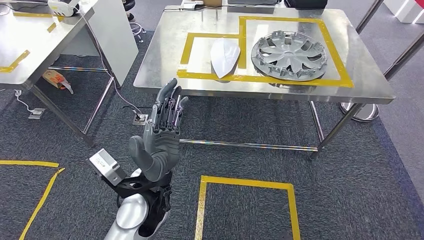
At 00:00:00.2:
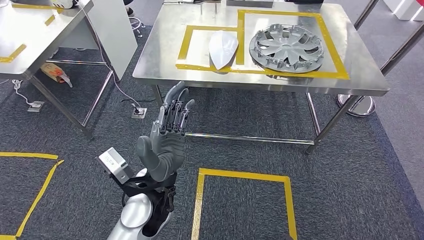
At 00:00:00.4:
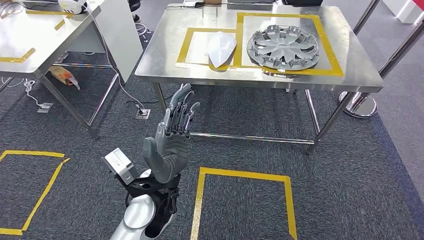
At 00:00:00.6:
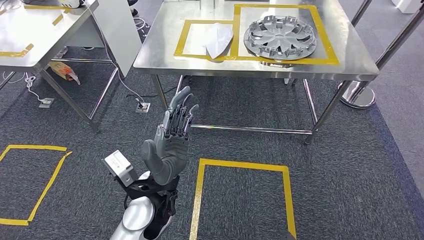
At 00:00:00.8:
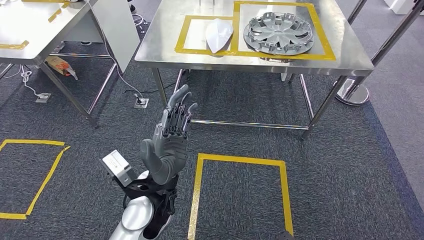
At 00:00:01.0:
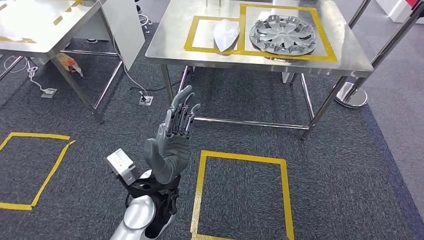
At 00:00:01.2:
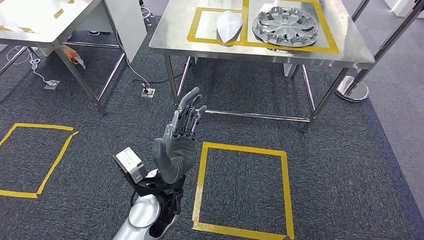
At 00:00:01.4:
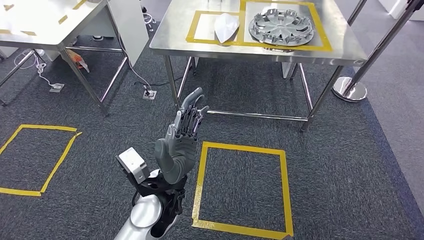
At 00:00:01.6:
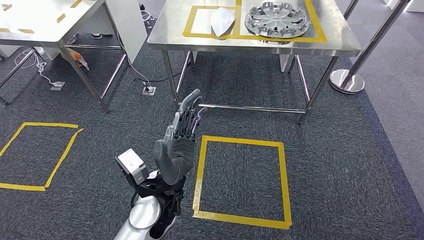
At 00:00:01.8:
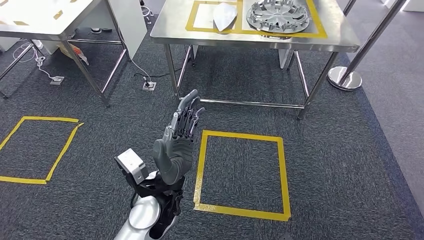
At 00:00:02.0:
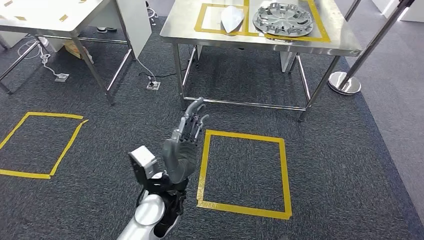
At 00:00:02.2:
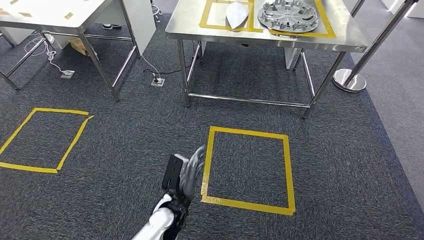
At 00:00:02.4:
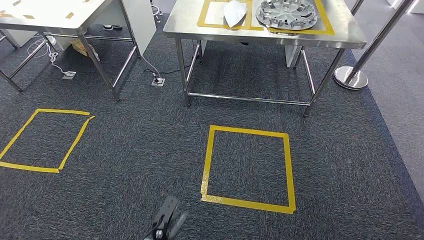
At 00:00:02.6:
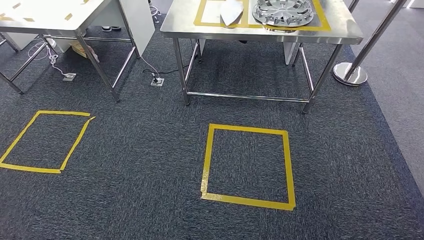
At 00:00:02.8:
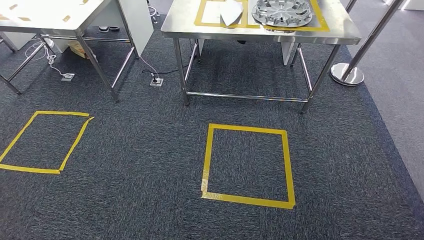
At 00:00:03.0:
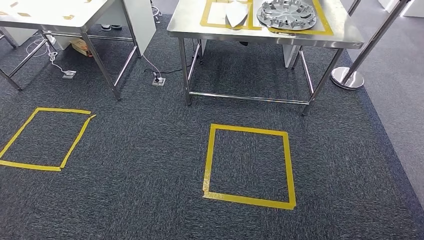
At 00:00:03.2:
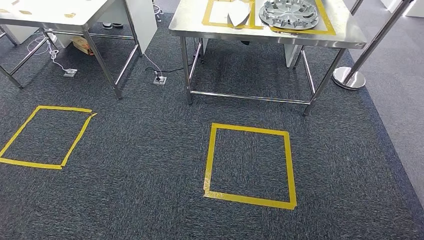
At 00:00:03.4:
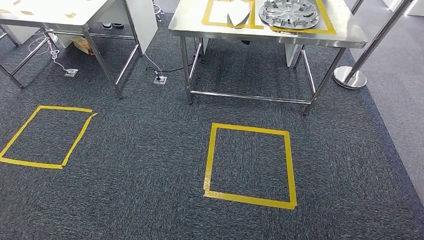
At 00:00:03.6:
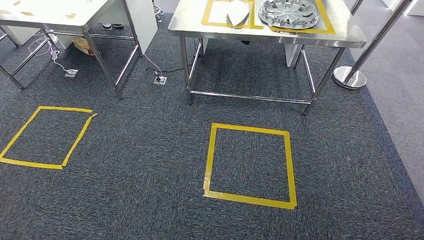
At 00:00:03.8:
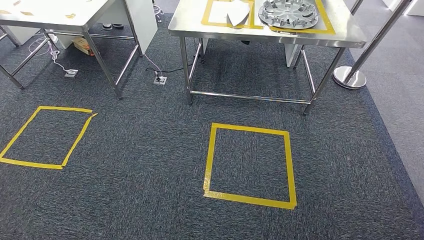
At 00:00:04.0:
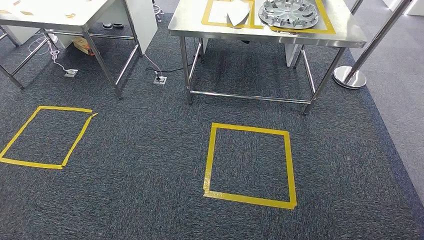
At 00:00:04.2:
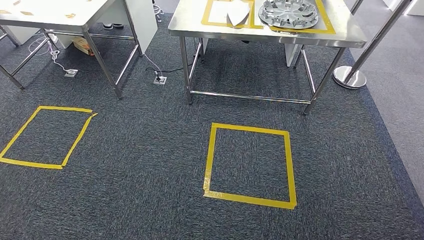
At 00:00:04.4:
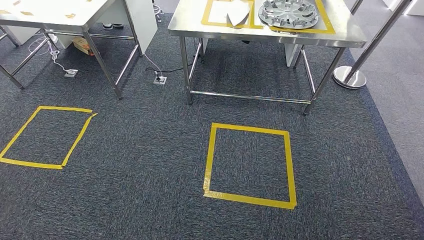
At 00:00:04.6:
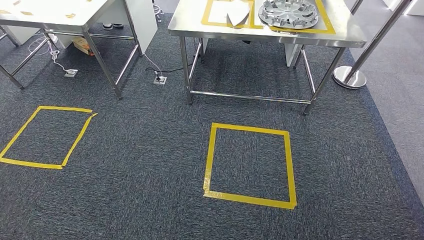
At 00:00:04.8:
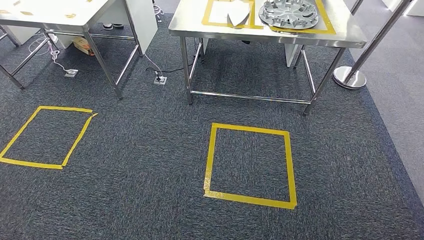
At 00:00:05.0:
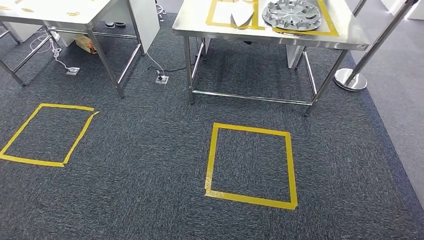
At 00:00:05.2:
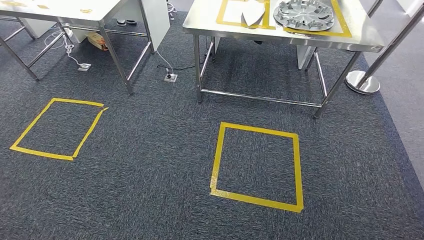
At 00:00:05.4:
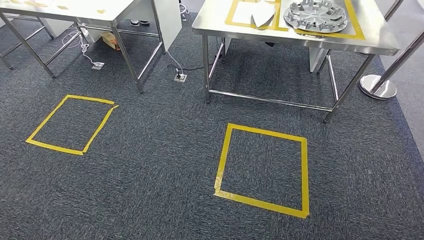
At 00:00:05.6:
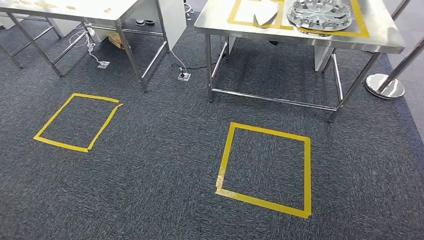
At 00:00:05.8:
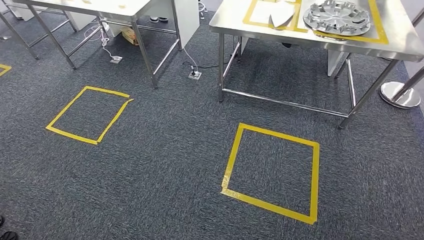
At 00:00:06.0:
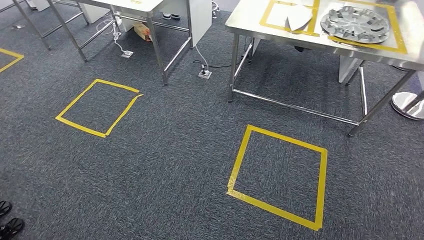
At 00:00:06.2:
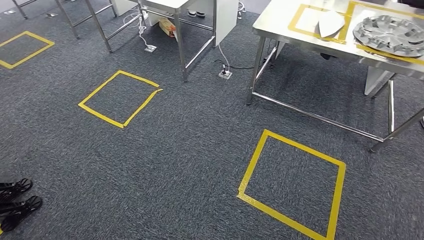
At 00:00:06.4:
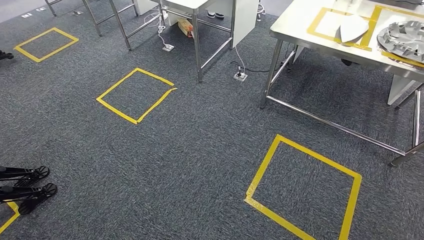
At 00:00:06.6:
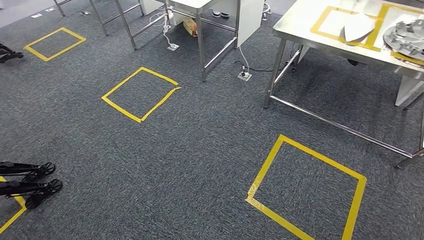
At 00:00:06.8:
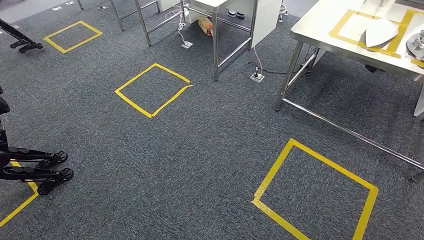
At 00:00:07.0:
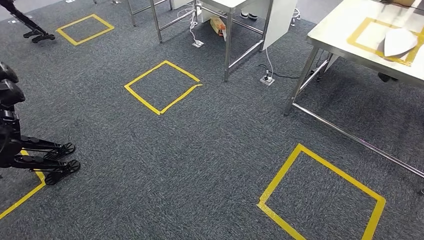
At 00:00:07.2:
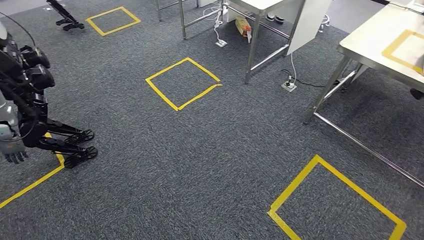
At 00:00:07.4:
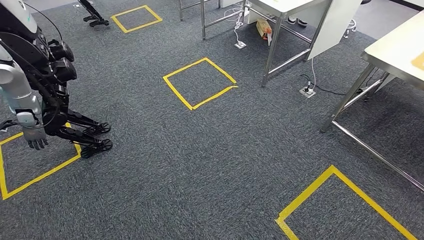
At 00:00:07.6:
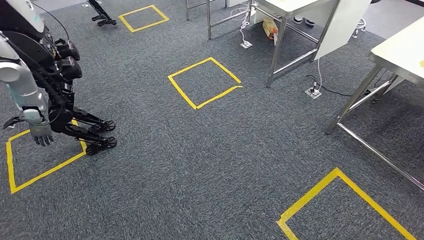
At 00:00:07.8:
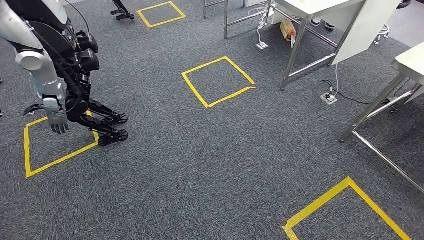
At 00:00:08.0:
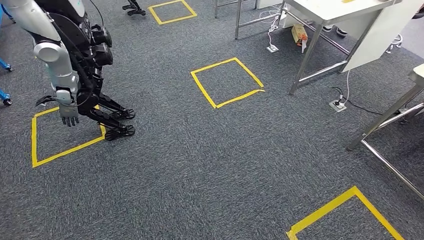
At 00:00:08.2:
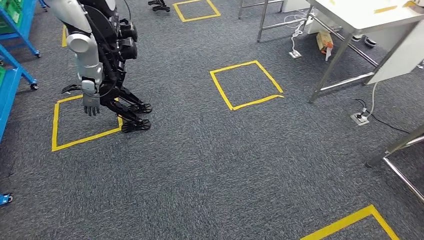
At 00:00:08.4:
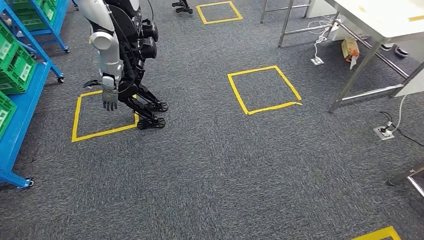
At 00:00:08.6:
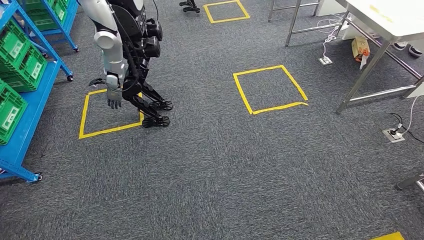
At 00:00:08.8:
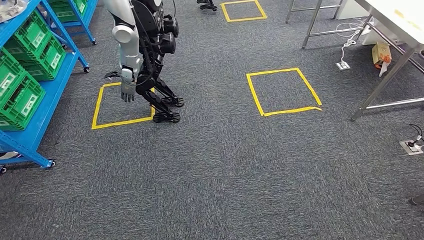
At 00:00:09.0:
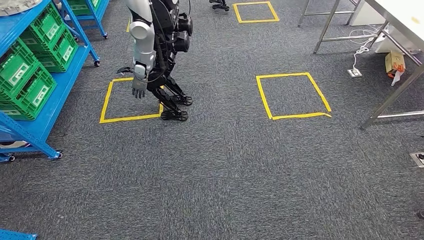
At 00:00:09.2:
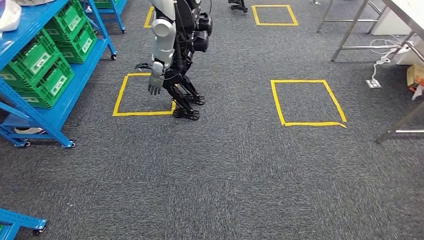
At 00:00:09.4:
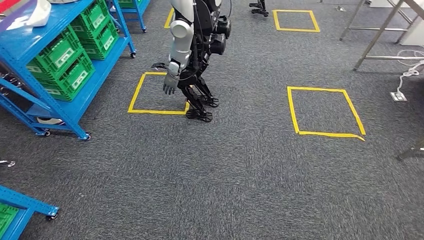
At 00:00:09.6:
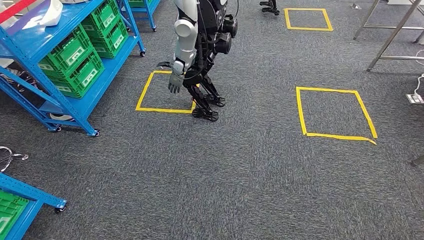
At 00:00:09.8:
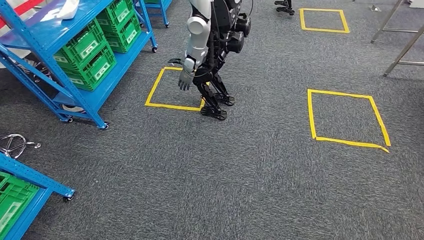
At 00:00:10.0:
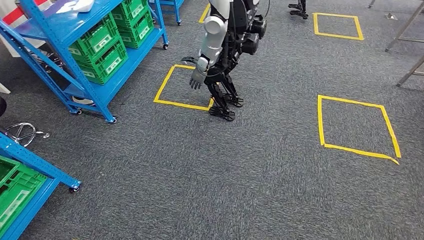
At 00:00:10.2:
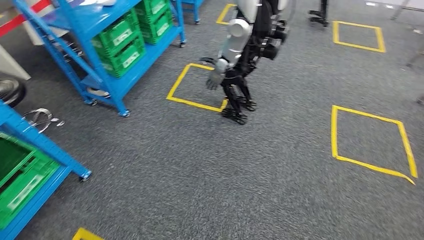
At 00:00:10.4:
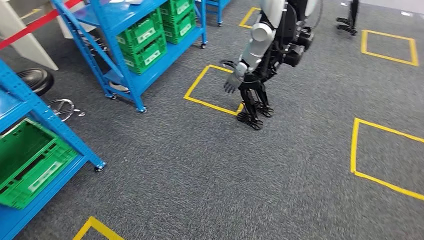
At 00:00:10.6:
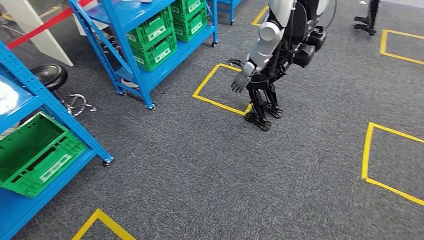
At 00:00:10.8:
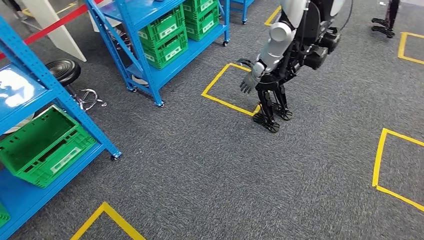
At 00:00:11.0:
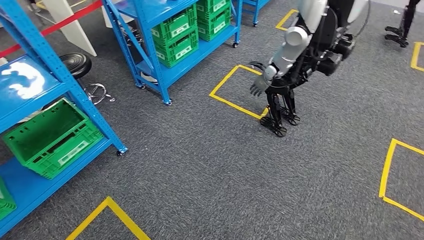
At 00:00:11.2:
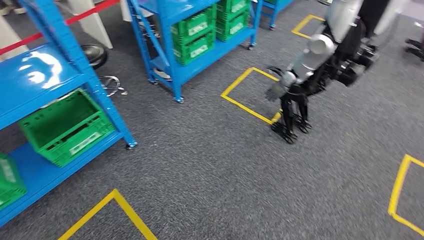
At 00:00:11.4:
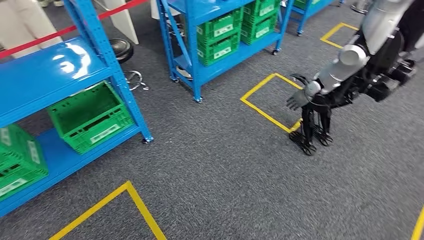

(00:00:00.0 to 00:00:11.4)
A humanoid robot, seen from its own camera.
Step, 00:00:00.0 - 00:00:11.2: Move to the initial position of the shelf.
00:00:02.8 - 00:00:04.2: The hands stay close to where they were, moving slightly.
